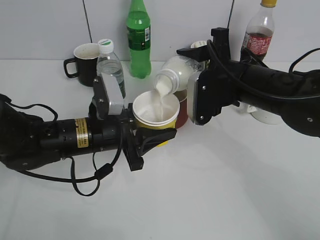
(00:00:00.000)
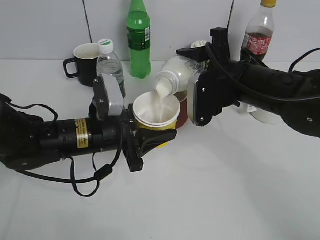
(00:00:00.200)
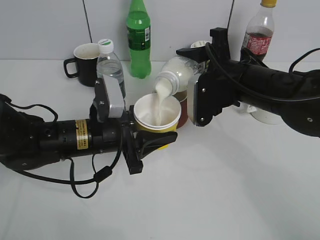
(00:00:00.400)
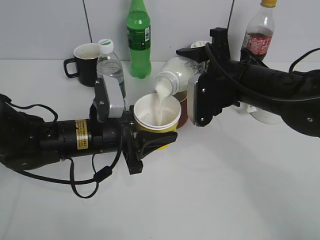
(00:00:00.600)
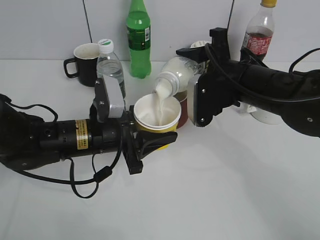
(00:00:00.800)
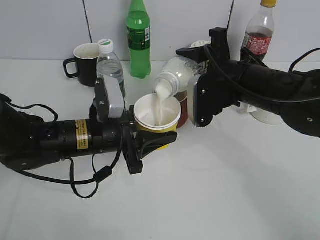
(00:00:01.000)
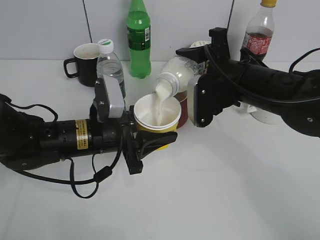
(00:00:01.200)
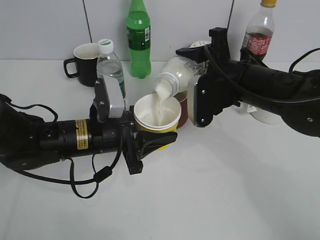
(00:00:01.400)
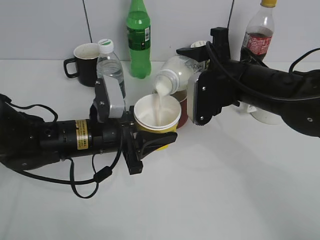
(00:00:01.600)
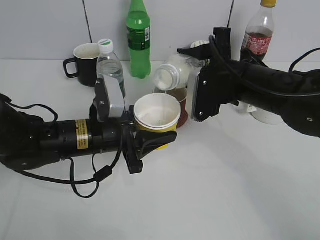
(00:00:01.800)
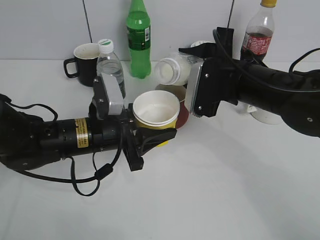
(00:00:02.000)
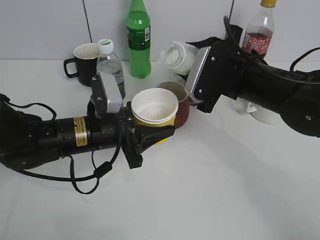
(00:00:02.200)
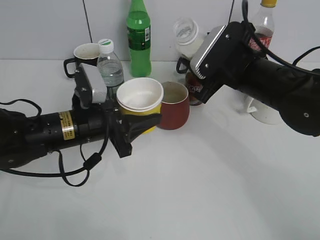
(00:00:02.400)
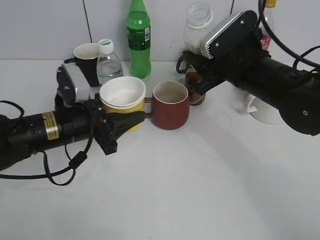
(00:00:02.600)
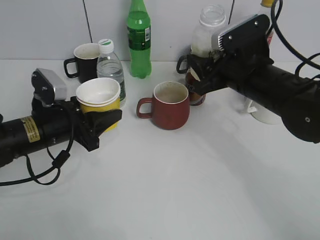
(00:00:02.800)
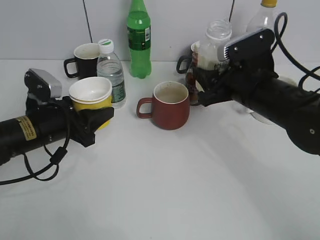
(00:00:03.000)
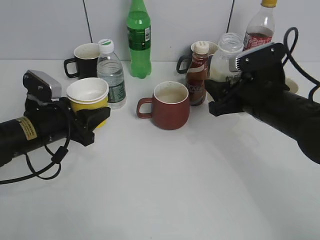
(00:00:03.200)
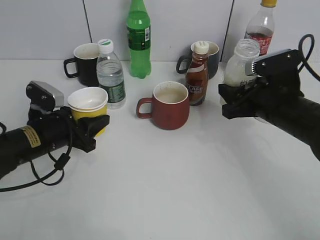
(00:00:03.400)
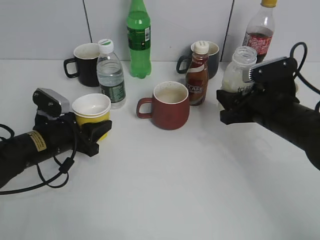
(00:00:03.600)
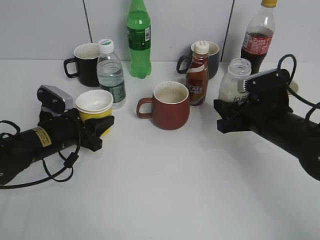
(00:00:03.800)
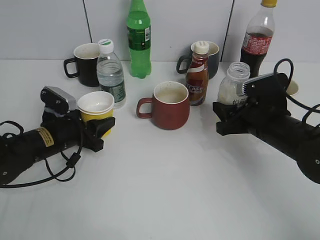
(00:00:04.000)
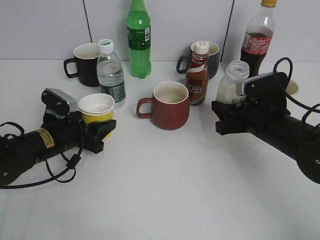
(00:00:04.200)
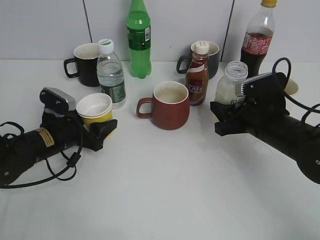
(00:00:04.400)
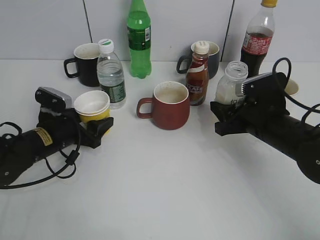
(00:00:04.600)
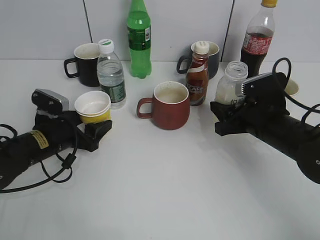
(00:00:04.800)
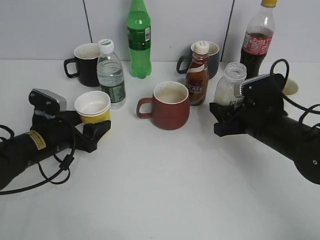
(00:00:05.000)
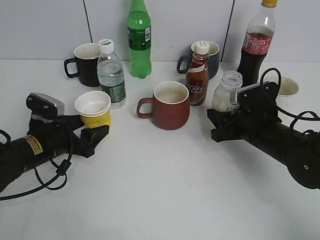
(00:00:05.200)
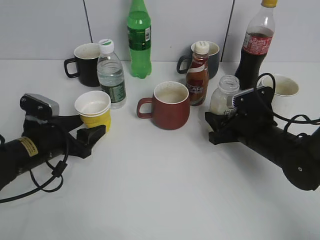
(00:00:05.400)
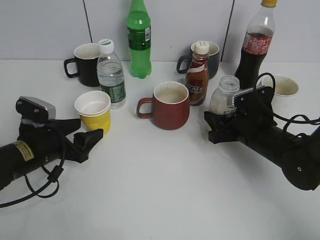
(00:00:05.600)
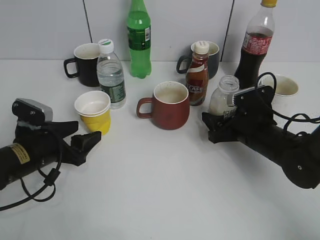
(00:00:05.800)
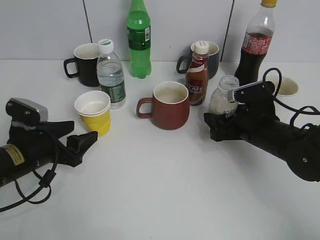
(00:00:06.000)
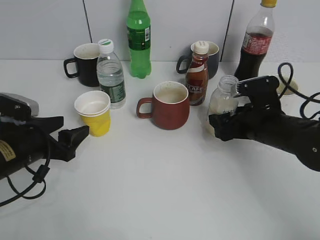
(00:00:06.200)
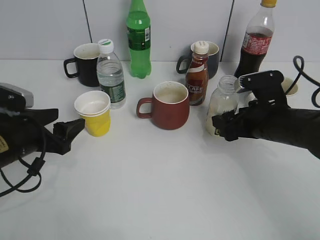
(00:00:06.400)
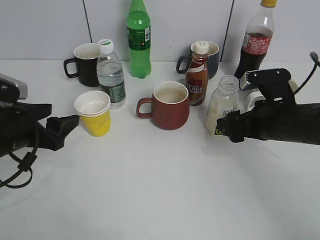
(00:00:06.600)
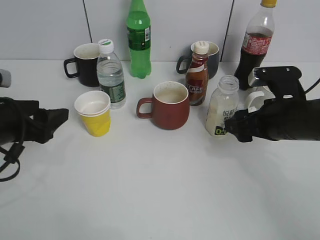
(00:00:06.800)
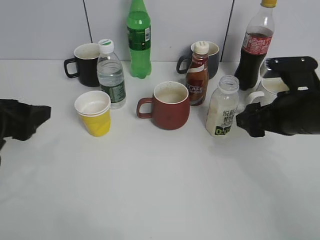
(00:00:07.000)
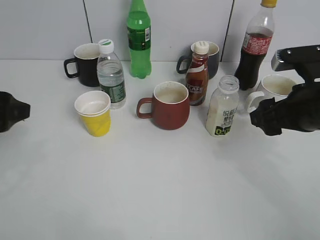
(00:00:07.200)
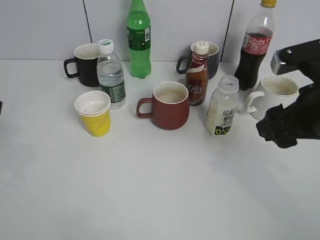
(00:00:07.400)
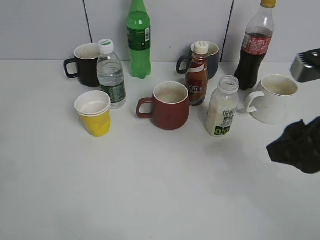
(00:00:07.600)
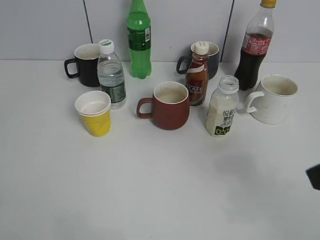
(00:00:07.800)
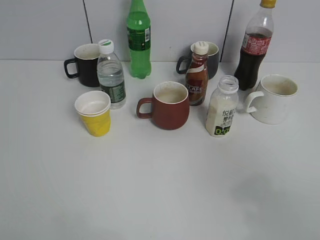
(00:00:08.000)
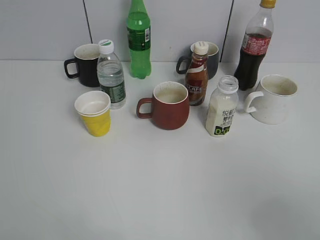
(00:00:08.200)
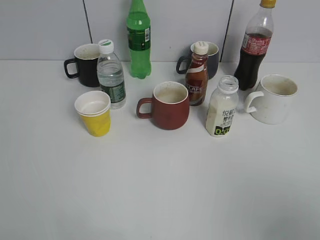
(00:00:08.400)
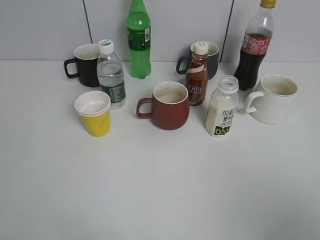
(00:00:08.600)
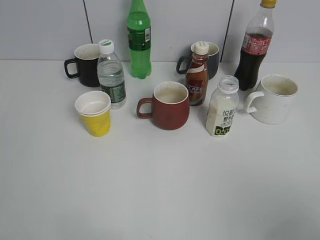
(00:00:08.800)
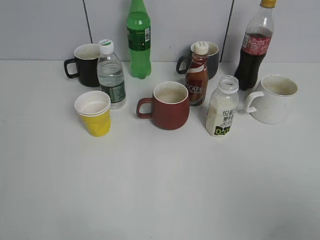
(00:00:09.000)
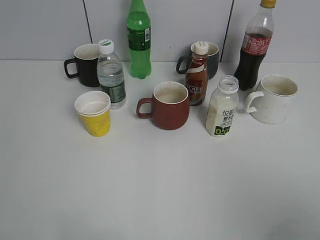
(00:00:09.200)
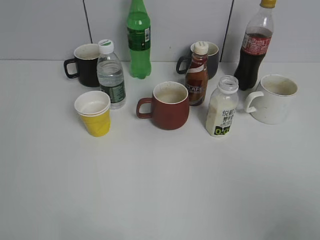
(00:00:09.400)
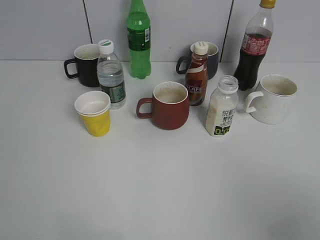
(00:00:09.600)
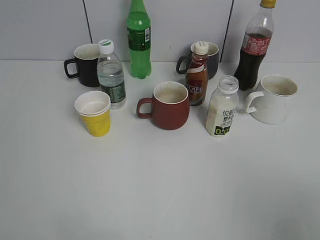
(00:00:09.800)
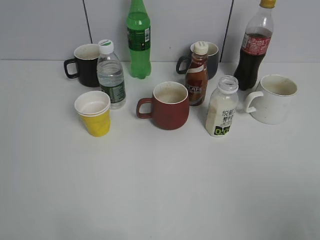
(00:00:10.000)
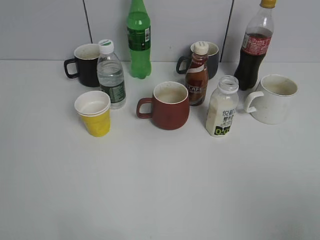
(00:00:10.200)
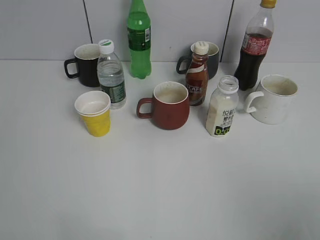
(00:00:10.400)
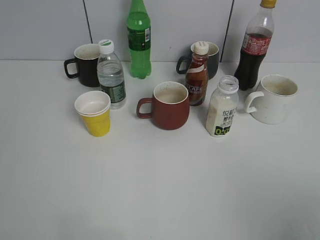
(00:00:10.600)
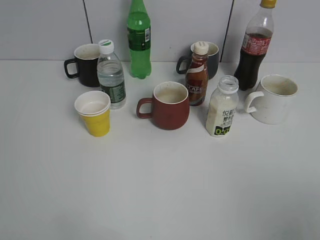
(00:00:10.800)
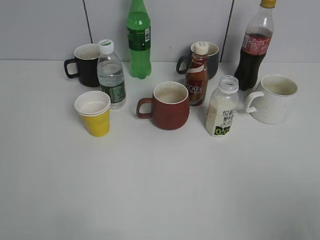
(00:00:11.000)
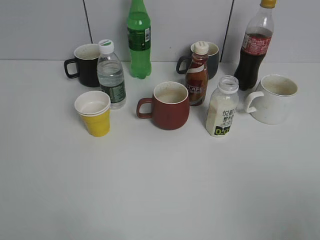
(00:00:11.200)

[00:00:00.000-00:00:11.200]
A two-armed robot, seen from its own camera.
Step, 00:00:00.000 to 00:00:02.200: Pour the yuexian Milk from bottle to cup with right gripper.
Step, 00:00:02.600 to 00:00:06.400: Place the yuexian Milk bottle on the table with right gripper.
00:00:00.000 to 00:00:01.600: The two grippers keep their place.
00:00:01.600 to 00:00:03.200: The right gripper shifts by approximately 5 cm. The left gripper goes approximately 10 cm to the left.
00:00:03.200 to 00:00:04.800: The grippers both shift downward by approximately 5 cm. The left gripper opens its fingers.
00:00:04.800 to 00:00:06.400: The left gripper moves backward and upward, some 10 cm. The right gripper opens its fingers.
00:00:06.400 to 00:00:08.000: The left gripper heads upward and backward, covering roughly 30 cm. Meanwhile the right gripper is displaced backward and upward by approximately 30 cm, and closes its fingers.
00:00:08.000 to 00:00:09.600: The right gripper goes about 5 cm backward.

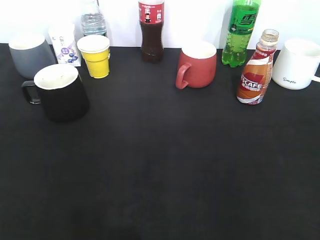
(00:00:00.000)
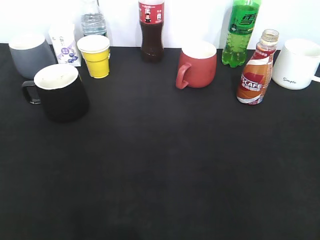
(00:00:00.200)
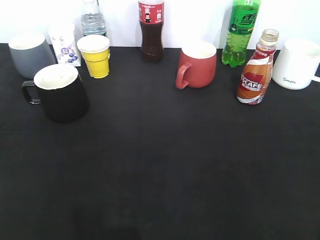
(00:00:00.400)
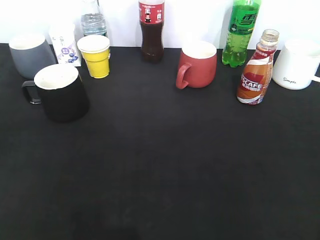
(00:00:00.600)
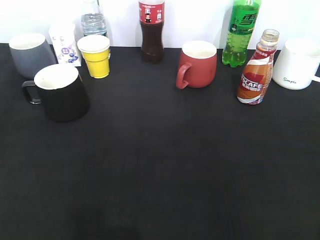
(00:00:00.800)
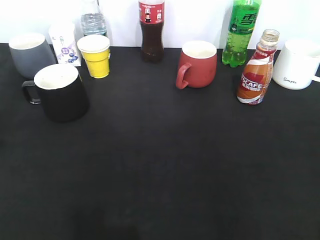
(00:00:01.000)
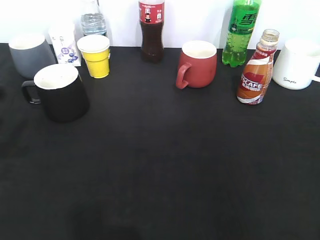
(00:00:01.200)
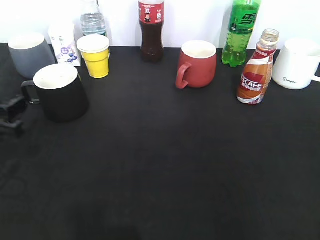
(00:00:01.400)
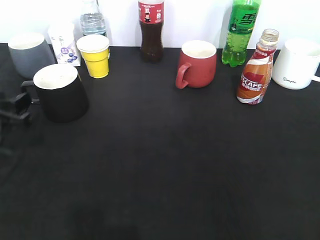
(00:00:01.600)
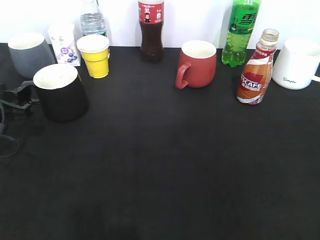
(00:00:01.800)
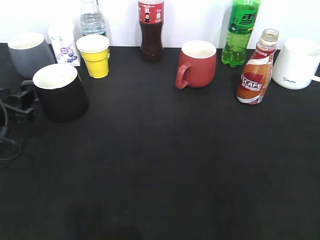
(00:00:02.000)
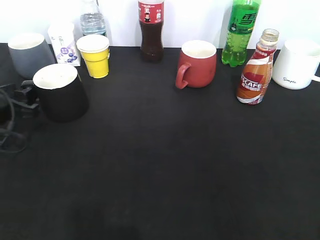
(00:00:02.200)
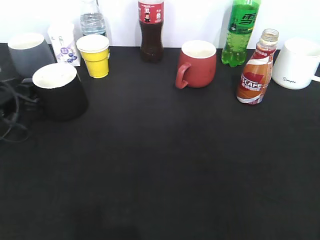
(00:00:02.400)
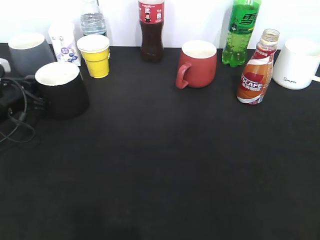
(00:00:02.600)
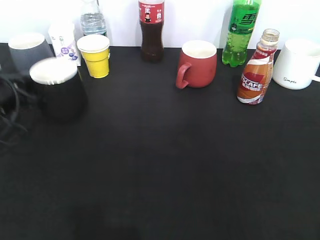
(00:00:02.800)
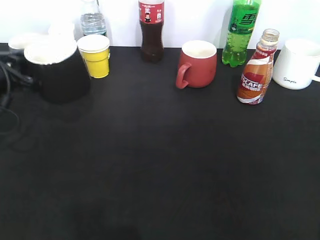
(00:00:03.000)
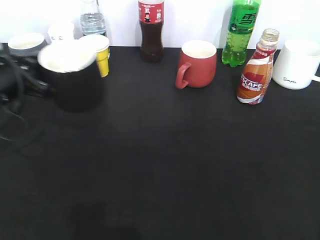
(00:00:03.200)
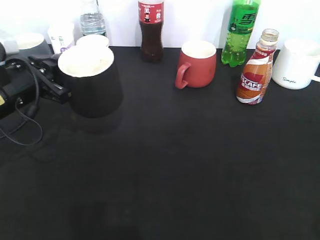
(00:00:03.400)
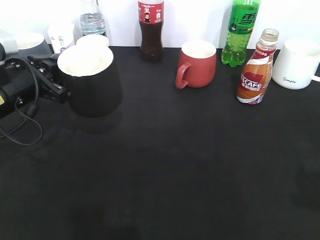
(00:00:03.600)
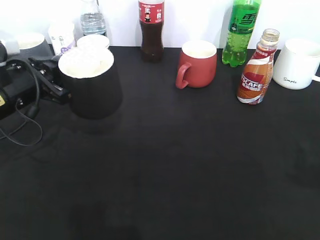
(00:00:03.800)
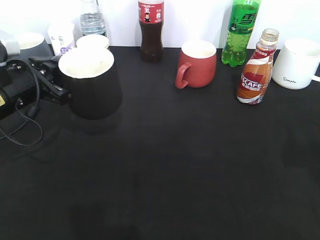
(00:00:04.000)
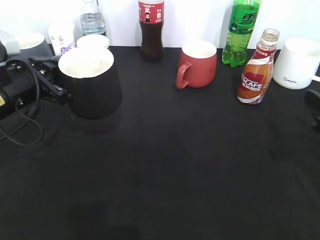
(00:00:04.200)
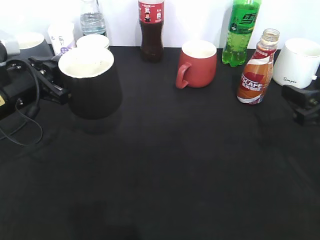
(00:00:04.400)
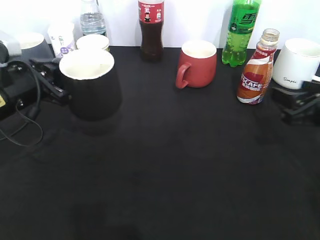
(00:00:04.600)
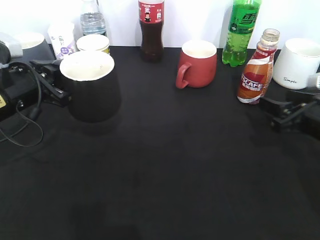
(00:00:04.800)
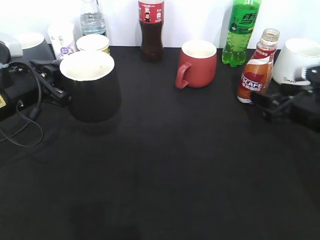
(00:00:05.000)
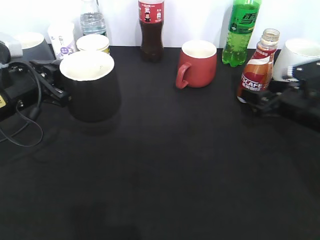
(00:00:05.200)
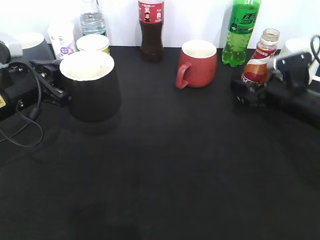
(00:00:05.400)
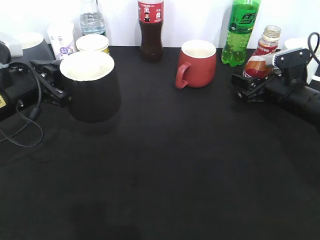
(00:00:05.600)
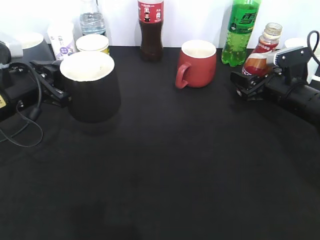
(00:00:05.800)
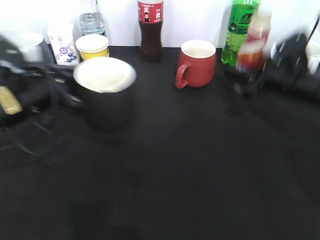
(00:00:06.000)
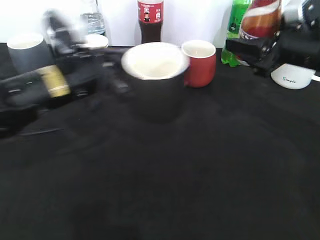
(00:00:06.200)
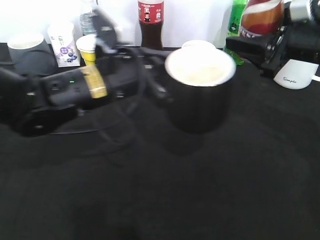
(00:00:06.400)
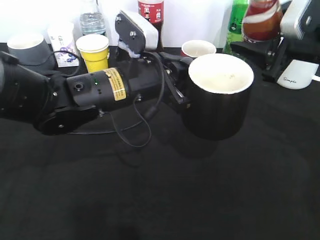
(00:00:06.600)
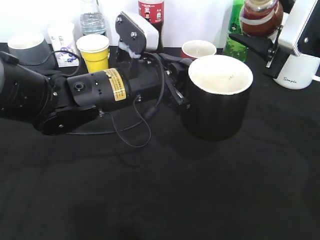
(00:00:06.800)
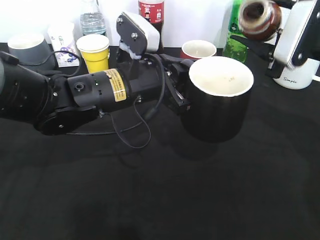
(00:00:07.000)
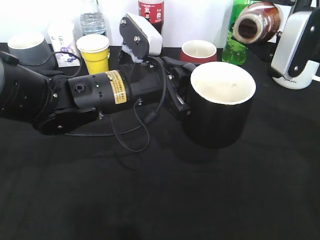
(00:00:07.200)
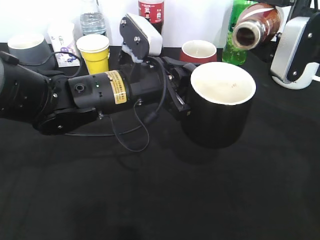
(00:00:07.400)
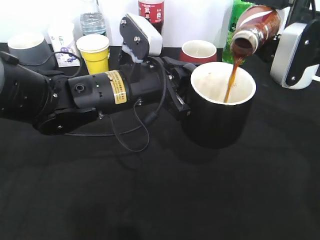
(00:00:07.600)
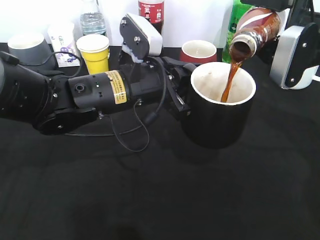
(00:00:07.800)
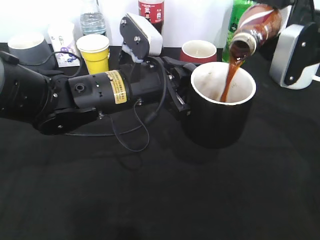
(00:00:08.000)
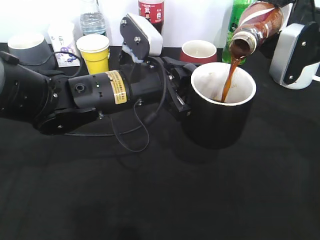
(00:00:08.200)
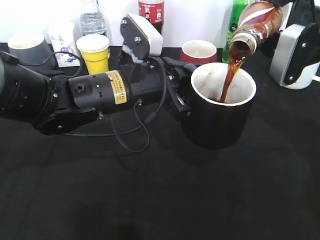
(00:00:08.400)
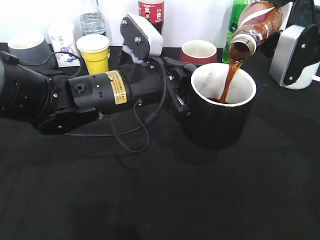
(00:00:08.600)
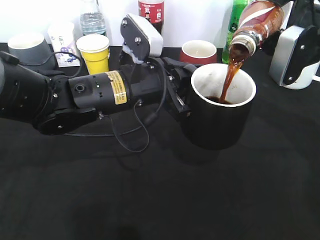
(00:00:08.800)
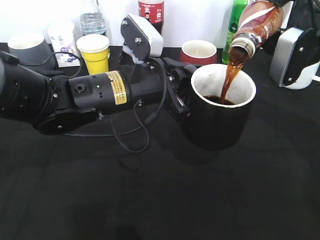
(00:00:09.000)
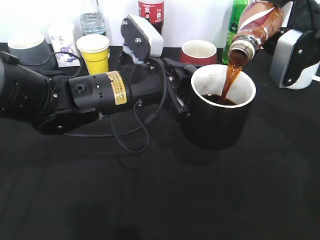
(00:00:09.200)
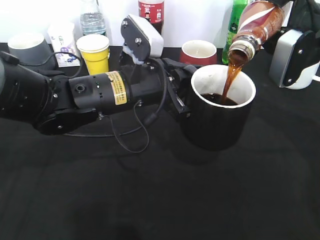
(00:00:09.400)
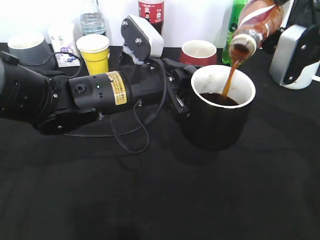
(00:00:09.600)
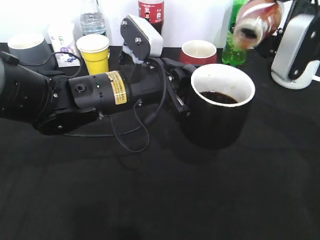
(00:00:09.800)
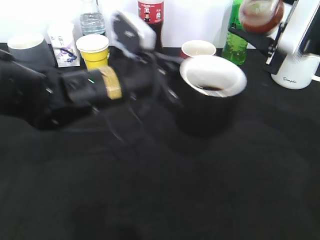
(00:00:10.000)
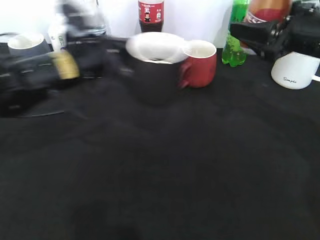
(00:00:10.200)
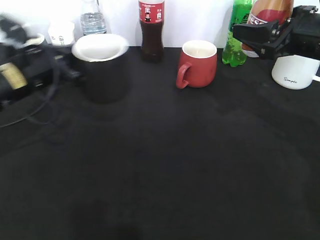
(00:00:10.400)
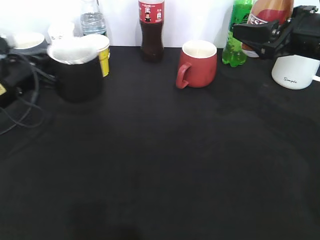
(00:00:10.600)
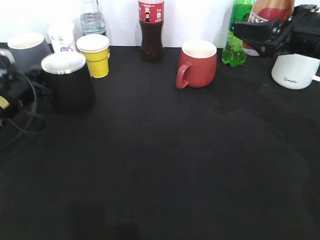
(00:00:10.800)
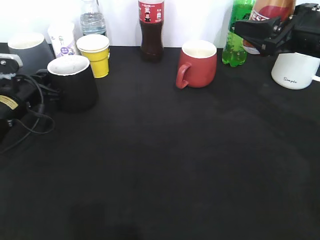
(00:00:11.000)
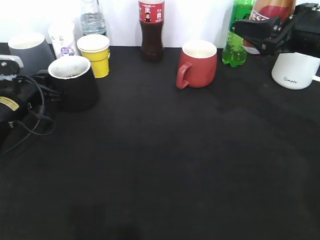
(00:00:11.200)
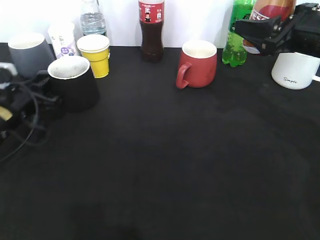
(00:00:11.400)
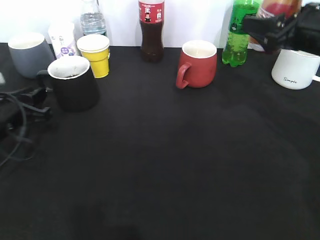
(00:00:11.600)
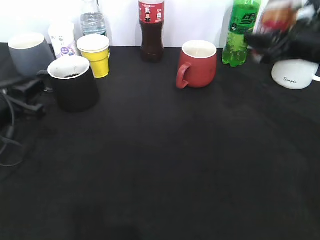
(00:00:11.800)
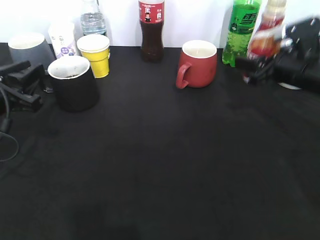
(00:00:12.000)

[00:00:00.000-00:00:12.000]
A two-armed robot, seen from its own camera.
Step, 00:00:02.800 to 00:00:03.200: Lift the black cup with left gripper.
Step, 00:00:03.600 to 00:00:05.400: Grasp the bottle with coffee with right gripper.
Step, 00:00:05.600 to 00:00:10.000: Pour the coffee from bottle to cup with right gripper.
Step, 00:00:10.200 to 00:00:11.600: Place the black cup on the table with left gripper.
00:00:00.000 to 00:00:01.600: The left gripper moves forward and downward, some 30 cm.
00:00:01.600 to 00:00:03.000: The left gripper moves forward, about 5 cm, and closes its fingers.
00:00:03.000 to 00:00:04.400: The left gripper heads to the right, covering about 5 cm; the right gripper shifts some 25 cm forward and downward.
00:00:04.400 to 00:00:06.000: The right gripper moves forward, approximately 10 cm, and opens, then closes once more.
00:00:06.000 to 00:00:07.600: The left gripper travels to the right by some 15 cm, while the right gripper travels upward by about 10 cm.
00:00:07.600 to 00:00:09.000: There are only small adjustments of the grippers.
00:00:09.000 to 00:00:10.400: The left gripper is displaced to the left by some 20 cm.
00:00:10.400 to 00:00:12.000: The left gripper travels backward by roughly 10 cm, and opens up, while the right gripper heads downward, covering roughly 10 cm.
